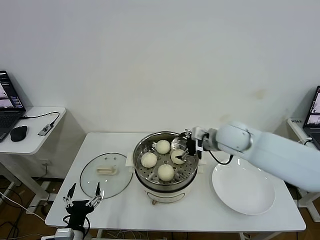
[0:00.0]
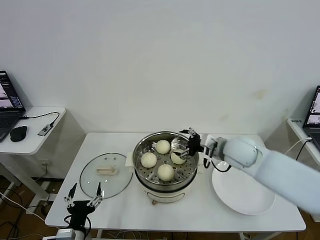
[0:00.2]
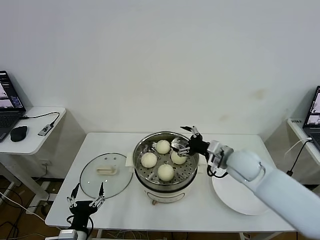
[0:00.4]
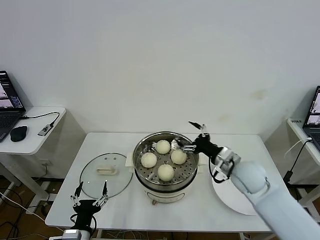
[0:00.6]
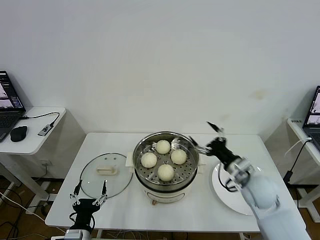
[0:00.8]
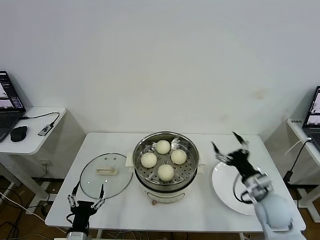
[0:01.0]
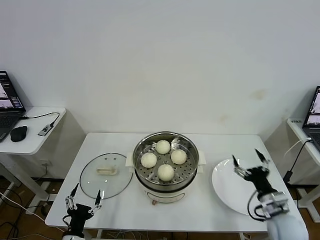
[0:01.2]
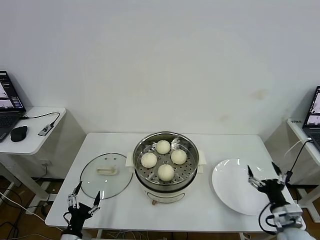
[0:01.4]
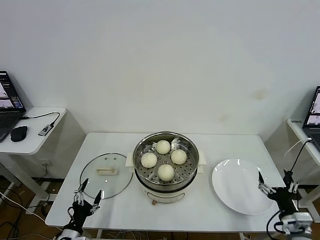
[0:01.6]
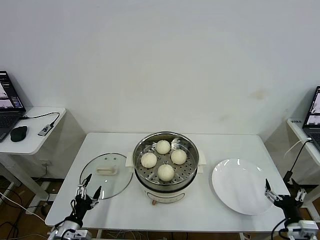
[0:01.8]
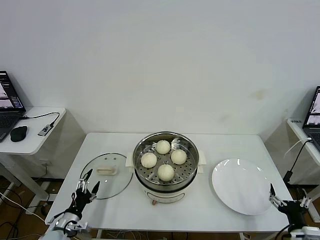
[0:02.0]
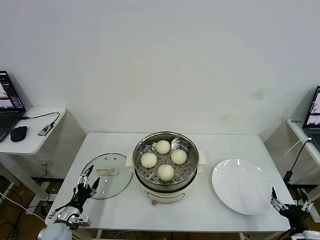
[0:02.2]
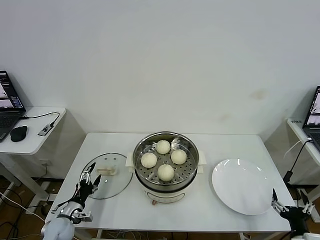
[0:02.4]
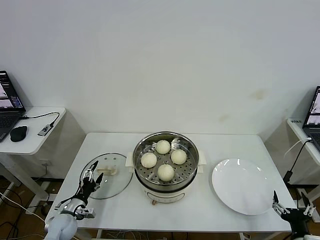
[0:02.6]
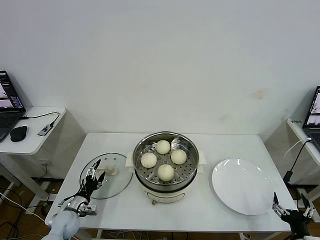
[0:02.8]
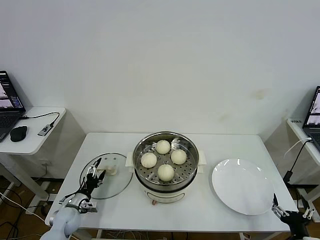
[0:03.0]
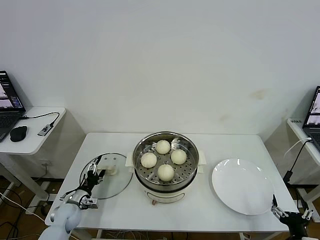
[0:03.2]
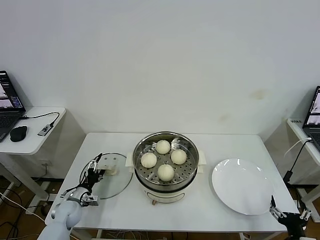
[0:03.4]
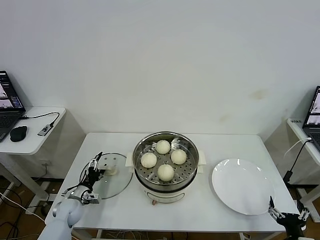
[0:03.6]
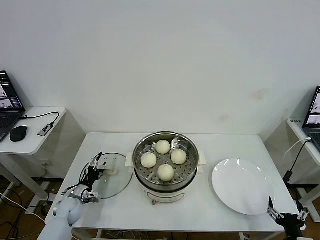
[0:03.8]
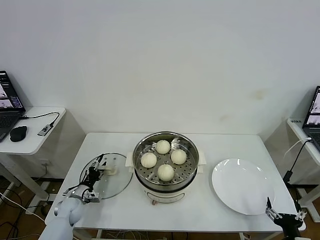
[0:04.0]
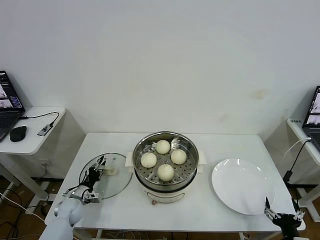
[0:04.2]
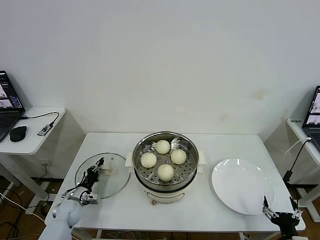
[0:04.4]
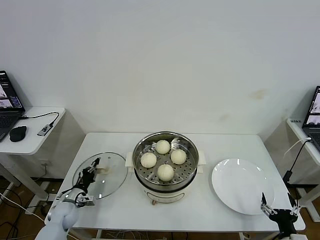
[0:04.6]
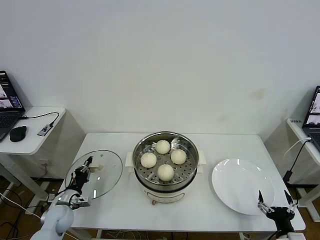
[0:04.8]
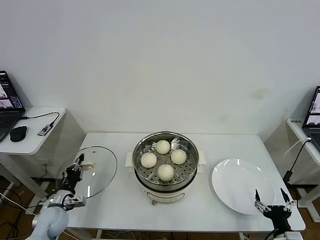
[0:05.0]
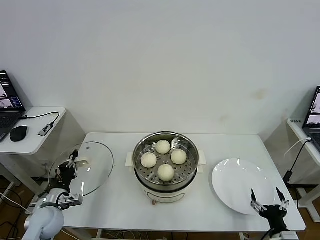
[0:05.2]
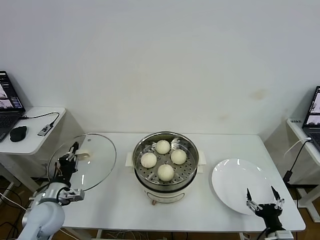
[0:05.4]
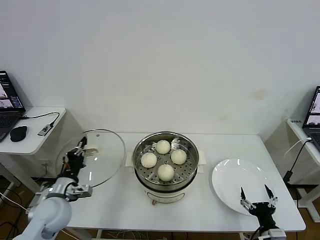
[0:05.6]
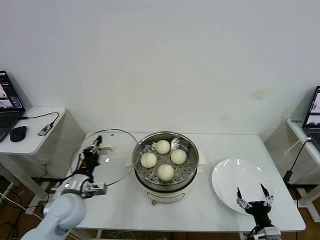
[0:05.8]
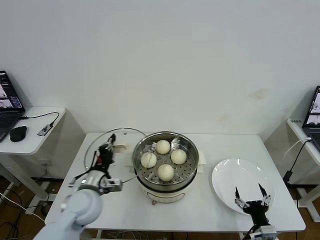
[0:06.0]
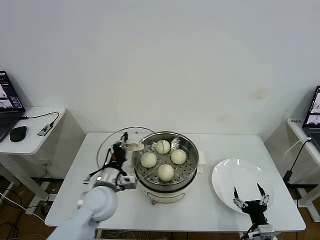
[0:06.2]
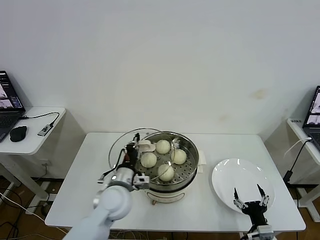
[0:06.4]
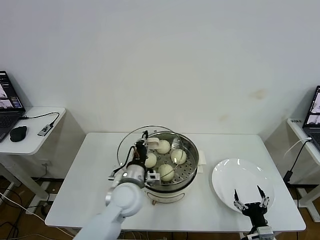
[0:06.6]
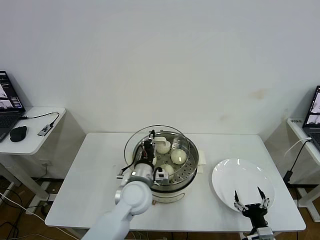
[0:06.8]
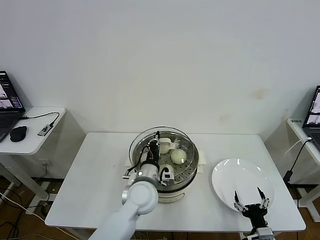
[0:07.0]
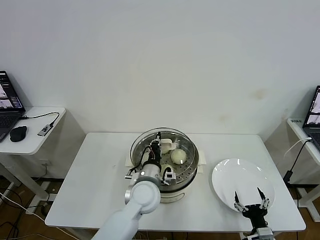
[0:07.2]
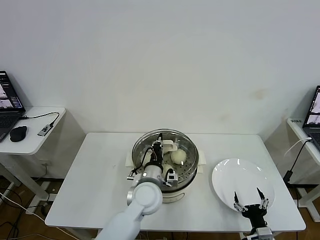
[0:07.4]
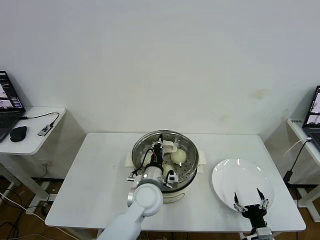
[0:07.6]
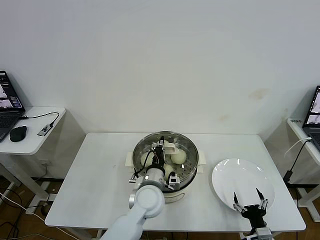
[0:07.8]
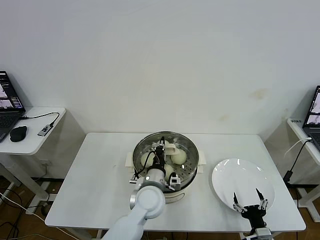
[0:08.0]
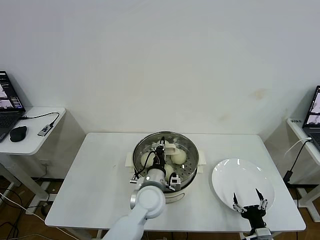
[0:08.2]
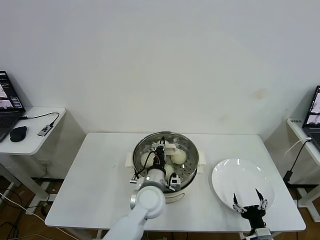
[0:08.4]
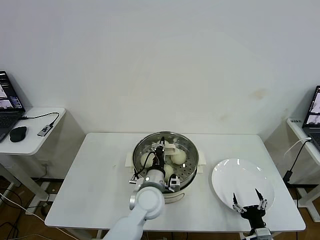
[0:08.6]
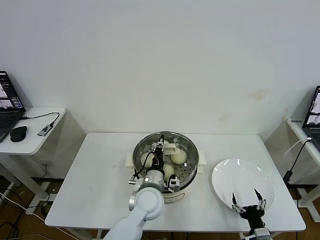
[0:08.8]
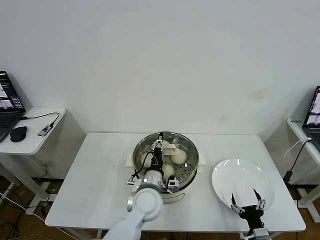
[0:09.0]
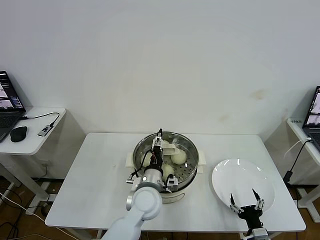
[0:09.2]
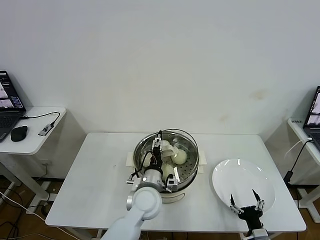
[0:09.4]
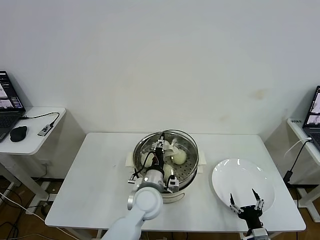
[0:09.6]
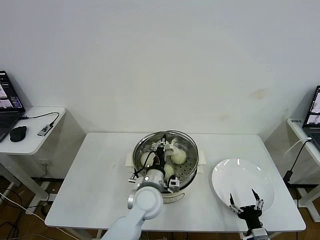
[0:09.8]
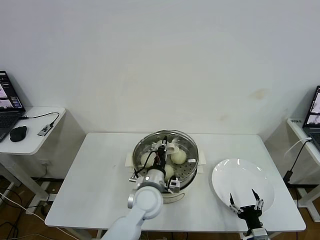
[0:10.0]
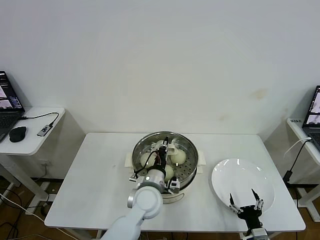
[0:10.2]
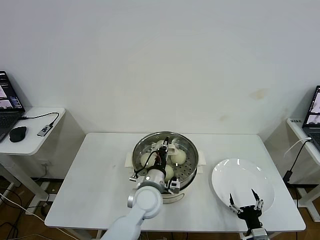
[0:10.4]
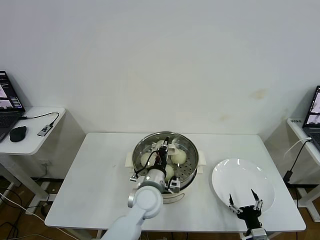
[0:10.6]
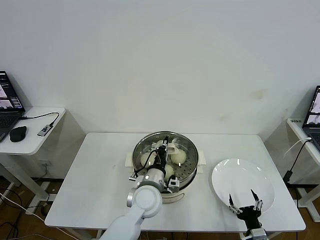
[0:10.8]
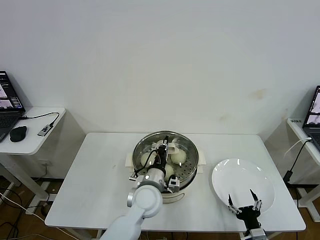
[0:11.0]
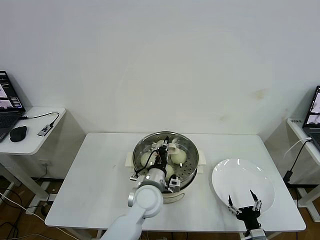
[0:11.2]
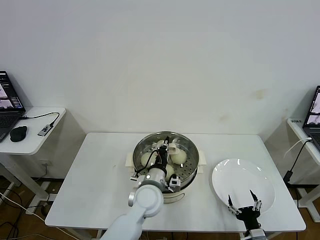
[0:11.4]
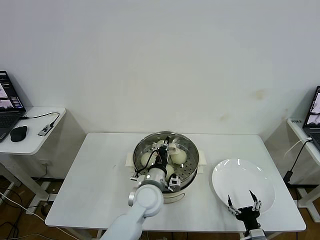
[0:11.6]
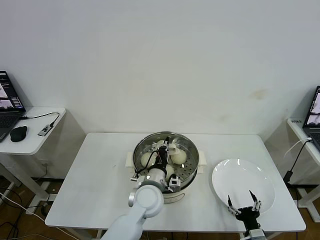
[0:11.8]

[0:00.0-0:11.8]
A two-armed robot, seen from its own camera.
Task of the whole recording: take steamed baozi put them in steamer then cover it.
Step, 0:00.0 to 0:04.6: Grasp the pot lid with left gripper.
Step, 0:04.8 to 0:09.0: Place the pot lid on the steamer with left gripper.
Step, 0:09.2 to 0:10.4: Grasp the pot lid with left gripper.
0:00.0 to 0:01.4: The left gripper moves some 5 cm; the right gripper shifts approximately 35 cm backward, downward and to the right.
0:01.4 to 0:03.0: The left gripper travels forward by roughly 15 cm, while the right gripper travels backward by some 10 cm.
0:03.0 to 0:04.4: The left gripper closes.
0:04.4 to 0:06.0: The left gripper is displaced upward and to the right by about 25 cm. The right gripper is displaced to the left by approximately 5 cm.
0:06.0 to 0:07.4: The left gripper heads to the right, covering some 20 cm.
0:07.4 to 0:08.8: The grippers make only small movements.
0:08.8 to 0:10.4: The left gripper opens, then closes once more.
0:10.4 to 0:11.8: Neither gripper changes place.

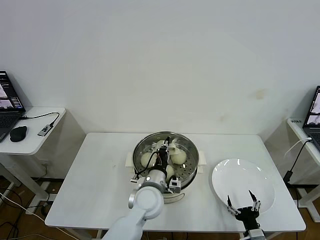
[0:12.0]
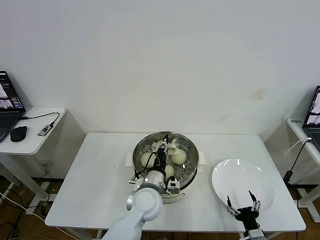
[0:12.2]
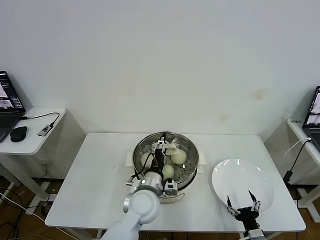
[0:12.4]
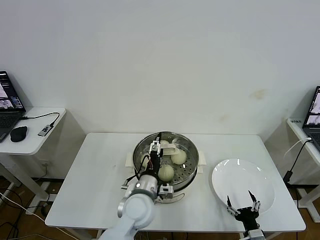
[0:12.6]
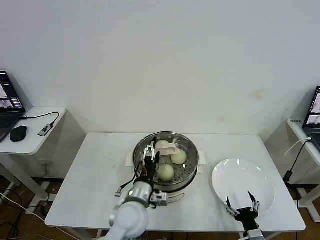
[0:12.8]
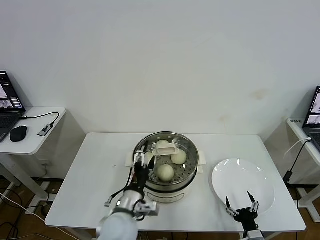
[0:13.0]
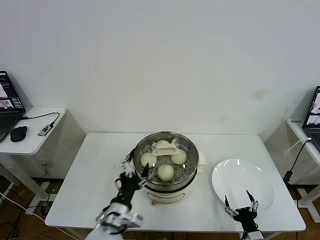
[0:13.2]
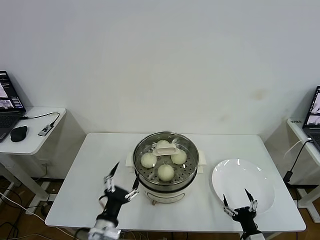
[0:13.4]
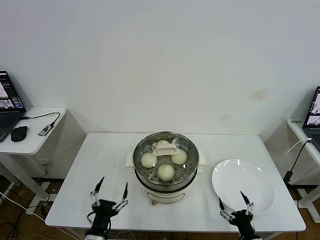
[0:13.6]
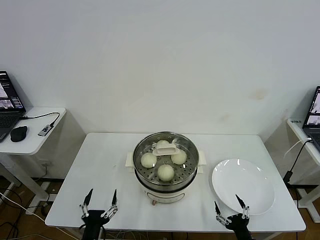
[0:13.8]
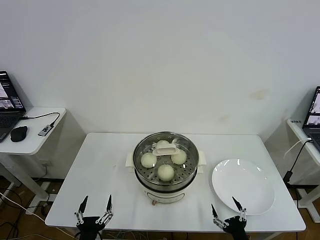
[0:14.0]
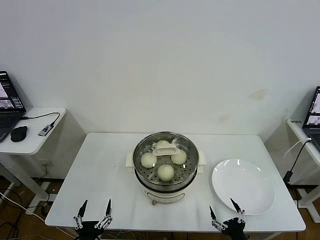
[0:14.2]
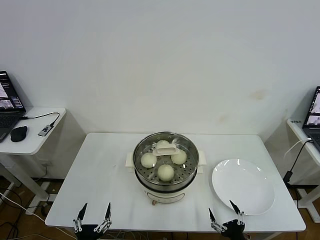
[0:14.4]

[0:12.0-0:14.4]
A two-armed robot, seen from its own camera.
Task of the whole recording: take steamed baozi put them in steamer then cover it.
0:12.0 to 0:13.2: The left gripper shifts about 15 cm backward and to the left, and opens.
0:13.2 to 0:14.4: The left gripper shifts about 20 cm backward, to the left and downward. Meanwhile the right gripper ends up roughly 5 cm from where it was.
